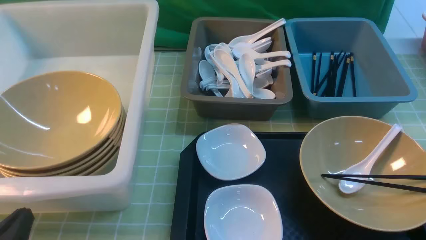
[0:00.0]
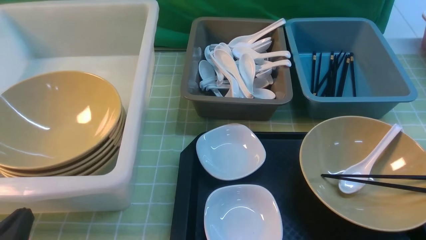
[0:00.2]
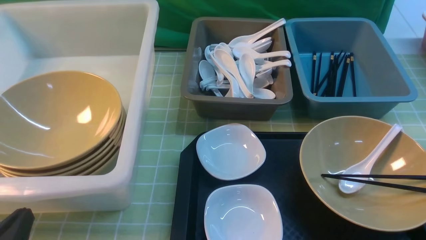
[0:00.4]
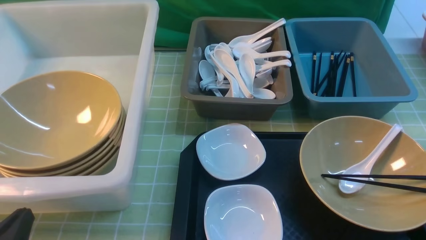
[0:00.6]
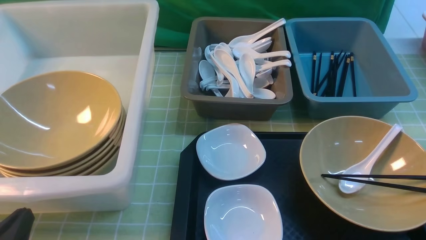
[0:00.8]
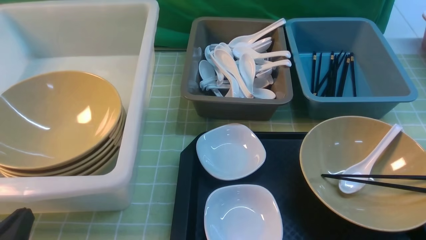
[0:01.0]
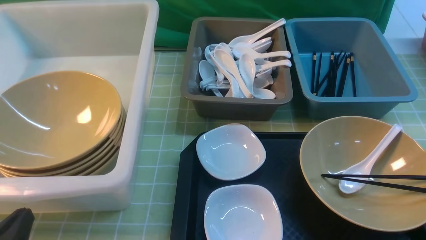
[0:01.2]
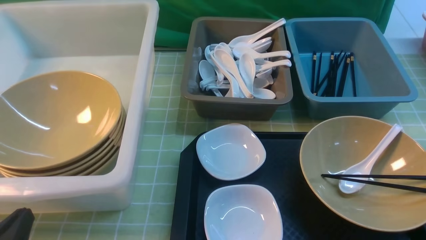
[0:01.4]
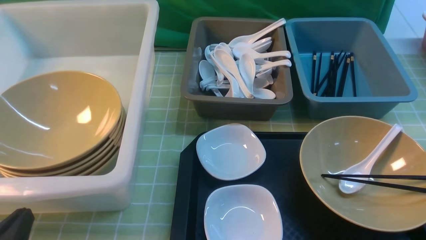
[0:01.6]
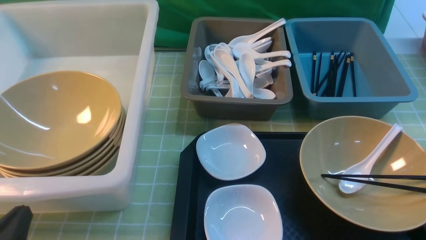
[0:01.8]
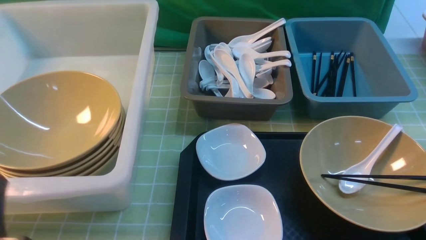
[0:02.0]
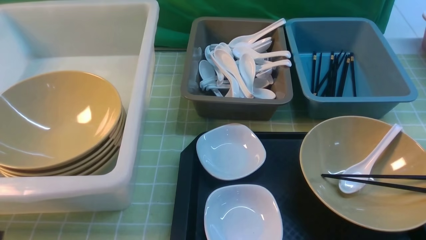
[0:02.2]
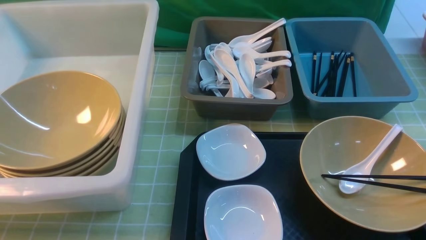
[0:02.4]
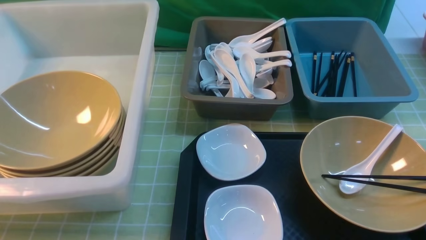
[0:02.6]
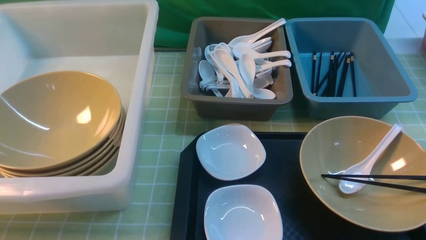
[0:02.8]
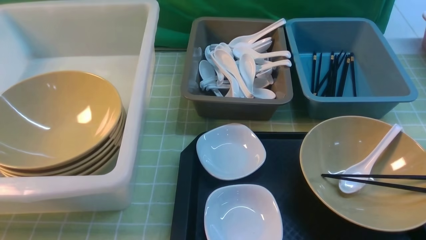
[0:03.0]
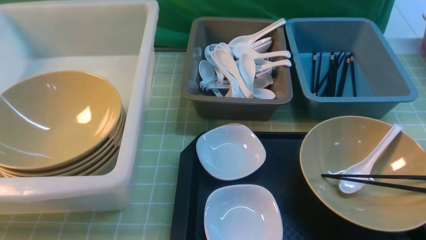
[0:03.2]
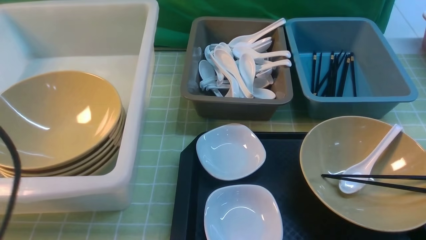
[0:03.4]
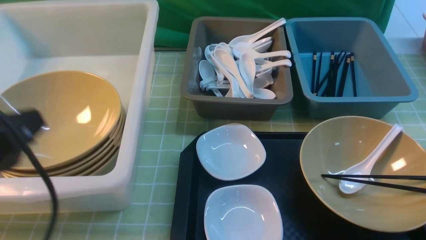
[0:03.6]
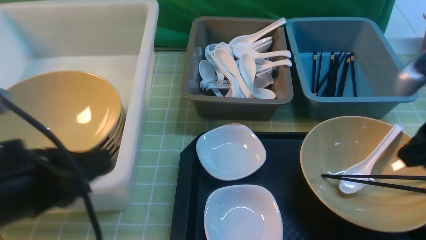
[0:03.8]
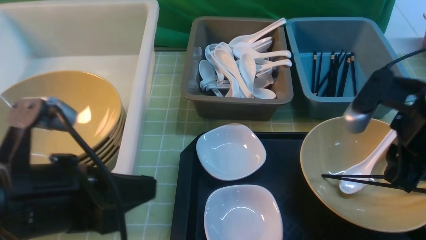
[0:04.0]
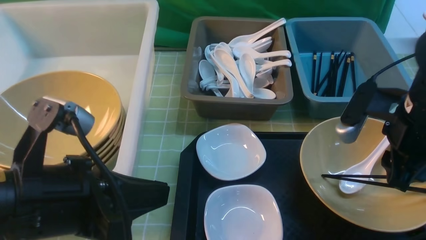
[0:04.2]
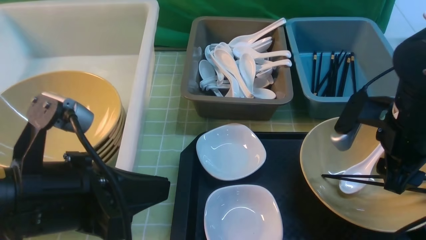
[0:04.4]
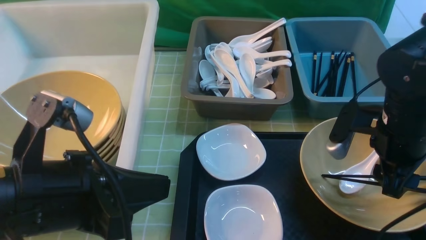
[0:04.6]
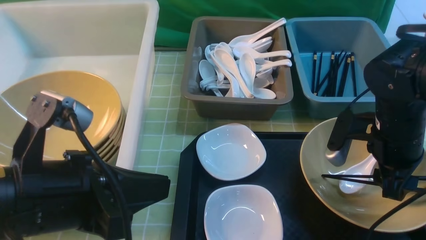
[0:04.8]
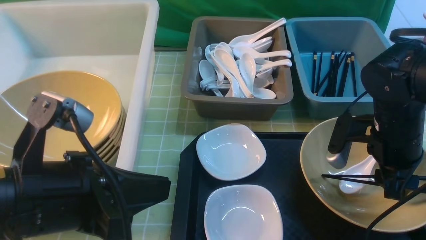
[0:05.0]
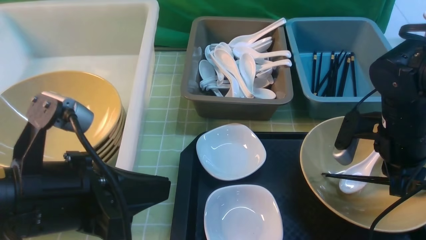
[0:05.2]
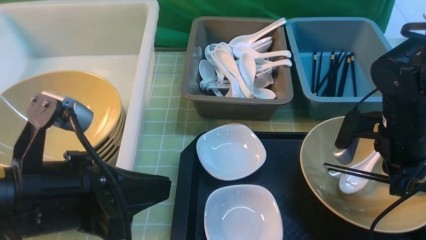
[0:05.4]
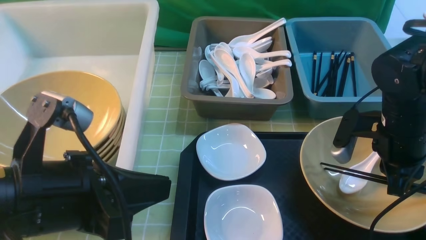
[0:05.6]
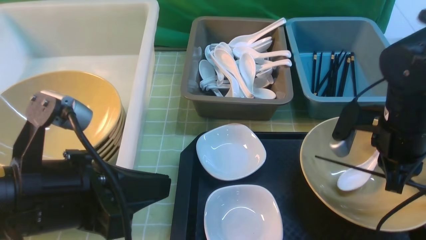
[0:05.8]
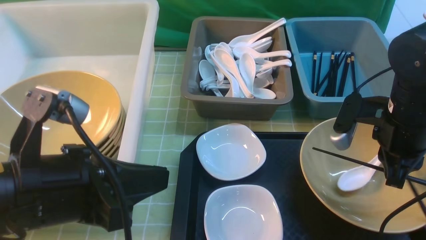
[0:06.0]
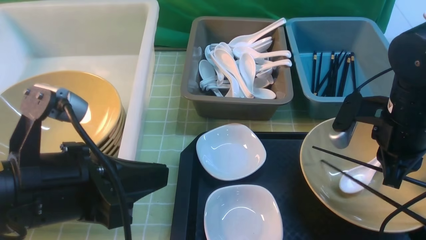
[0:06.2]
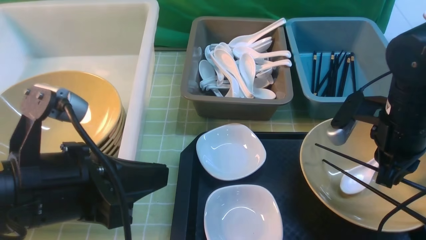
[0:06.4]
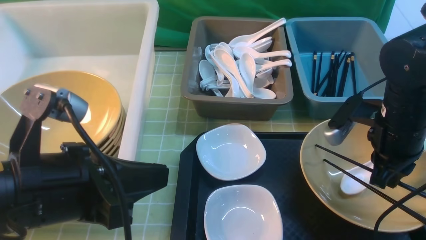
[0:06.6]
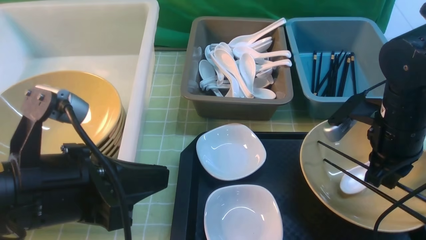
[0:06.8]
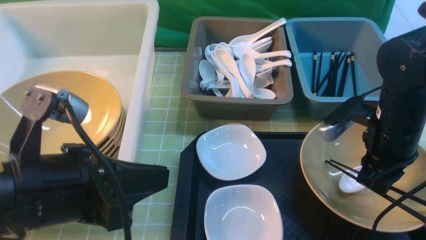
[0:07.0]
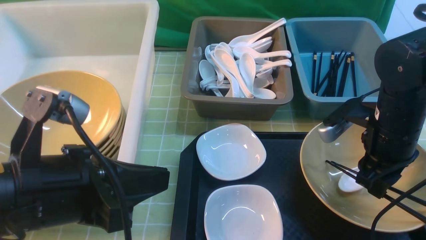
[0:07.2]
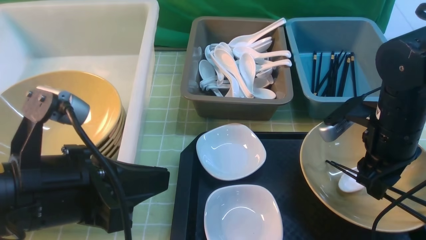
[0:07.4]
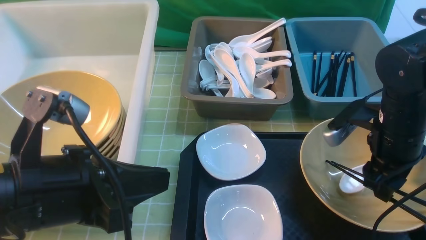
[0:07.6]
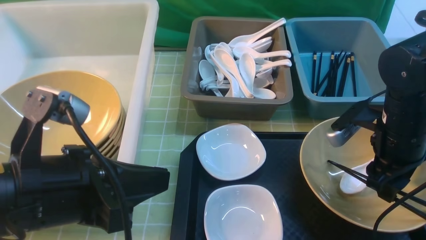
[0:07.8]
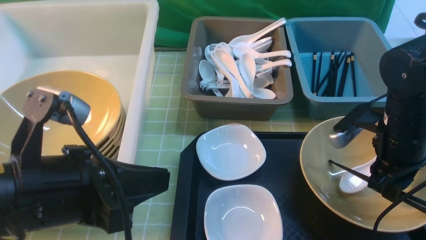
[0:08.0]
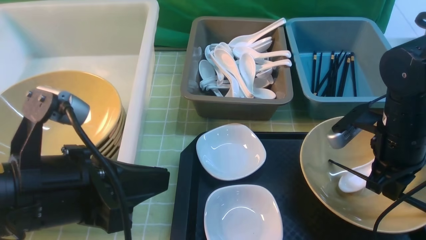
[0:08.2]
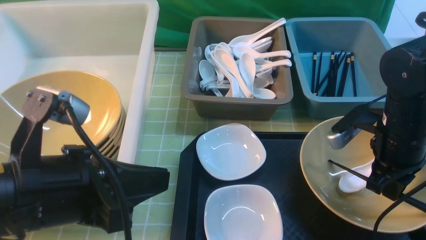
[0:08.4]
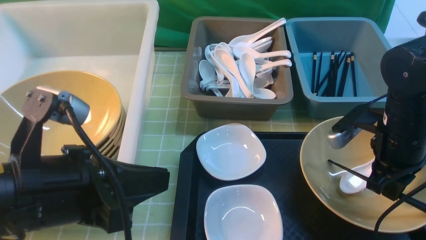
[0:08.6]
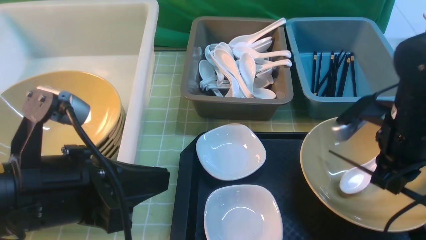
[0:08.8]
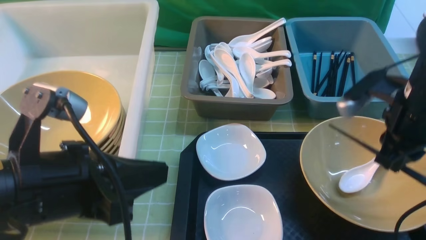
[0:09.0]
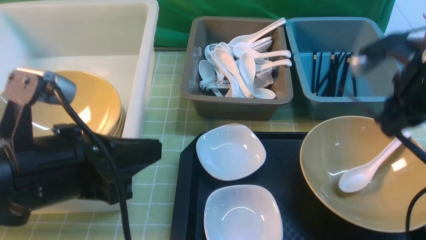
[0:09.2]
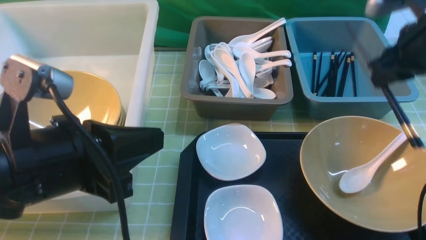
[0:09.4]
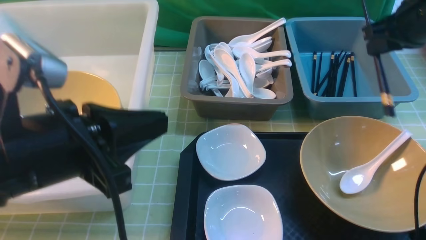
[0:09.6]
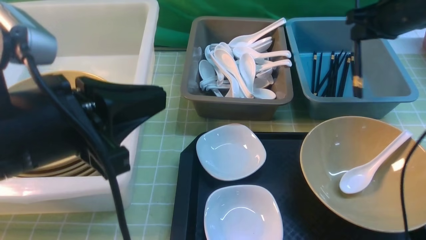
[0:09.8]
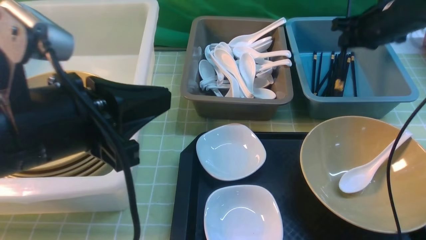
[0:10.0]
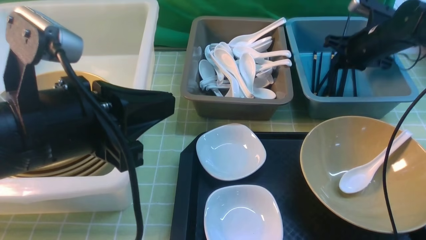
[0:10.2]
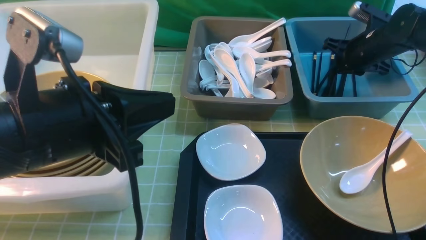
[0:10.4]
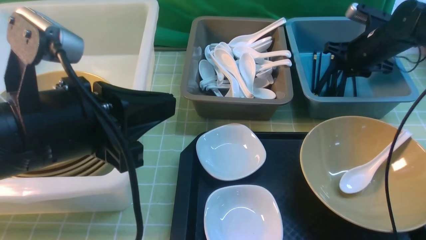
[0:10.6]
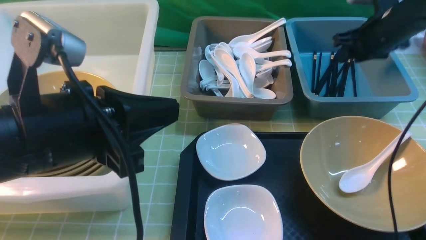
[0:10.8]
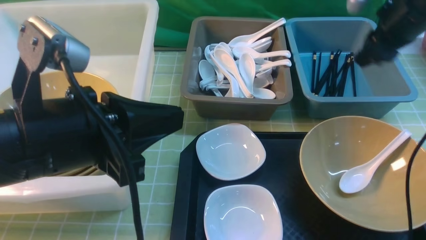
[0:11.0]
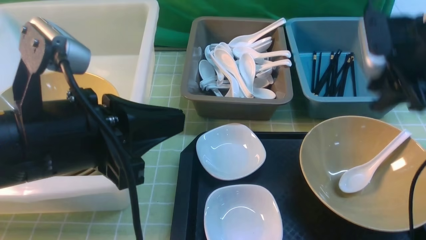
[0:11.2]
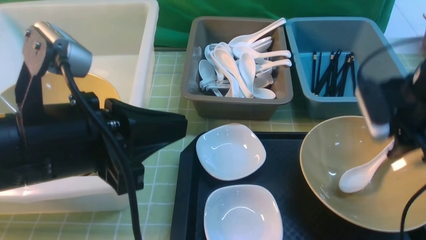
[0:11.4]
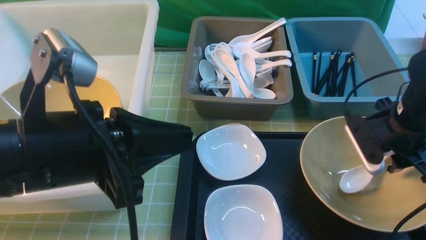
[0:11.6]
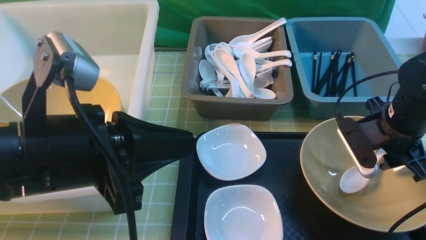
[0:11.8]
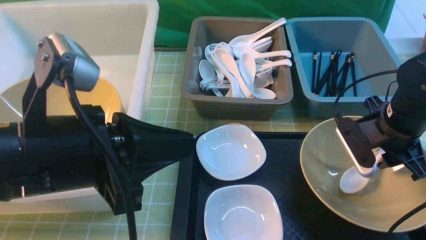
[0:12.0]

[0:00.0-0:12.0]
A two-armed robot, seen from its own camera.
Task of the whole recording: on green table put chopsticks spoon bowls plates into blue grey white boxes.
Step, 0:00.0 to 0:09.0: use the right arm to grab the chopsticks.
Step, 0:09.2 to 0:10.8: use the right arm to put the chopsticks into the small storage box on the right.
0:00.0 to 0:01.6: Both grippers stay about where they are.
0:01.6 to 0:03.0: The left gripper goes roughly 20 cm upward.
0:03.0 to 0:04.4: The right gripper travels forward and downward by approximately 30 cm; the left gripper goes roughly 15 cm to the right, downward and forward.
0:04.4 to 0:06.0: The right gripper closes.
0:06.0 to 0:07.6: The right gripper opens its fingers.
0:07.6 to 0:09.0: The right gripper travels upward by about 5 cm, and closes.
0:09.0 to 0:10.4: The right gripper is displaced forward by some 20 cm.
0:10.4 to 0:12.0: The right gripper travels backward by roughly 20 cm.

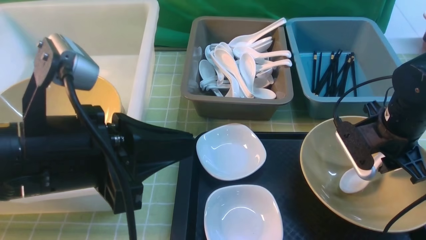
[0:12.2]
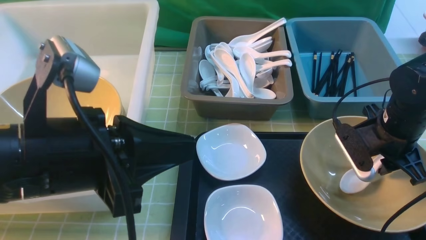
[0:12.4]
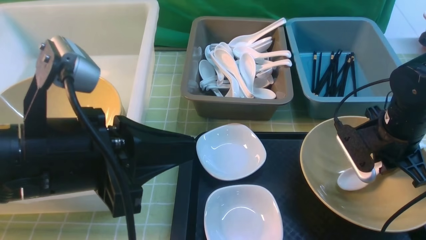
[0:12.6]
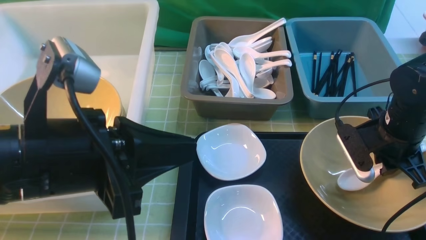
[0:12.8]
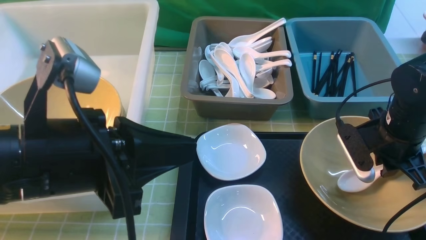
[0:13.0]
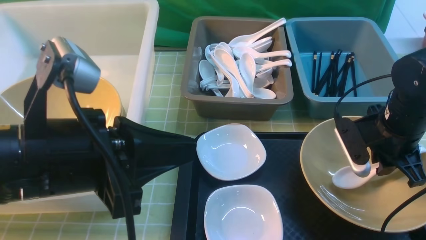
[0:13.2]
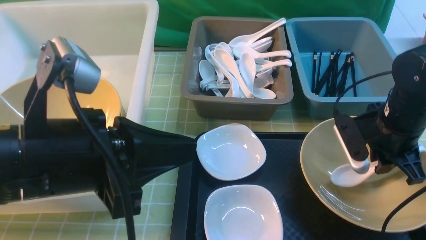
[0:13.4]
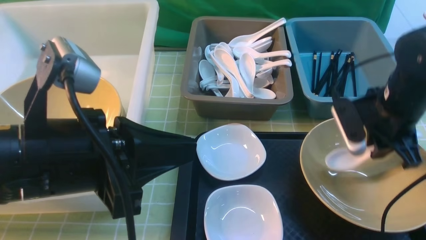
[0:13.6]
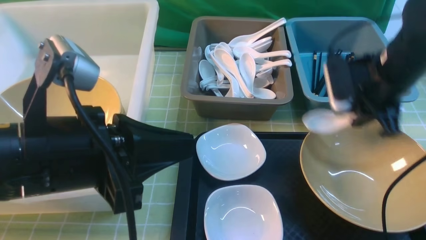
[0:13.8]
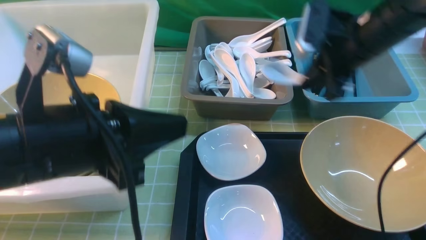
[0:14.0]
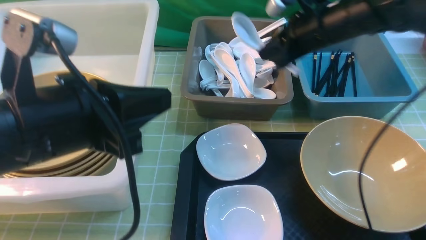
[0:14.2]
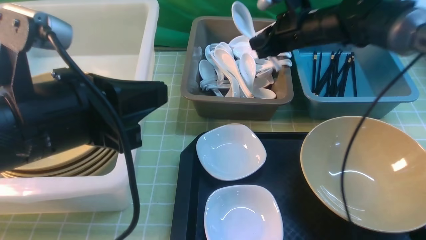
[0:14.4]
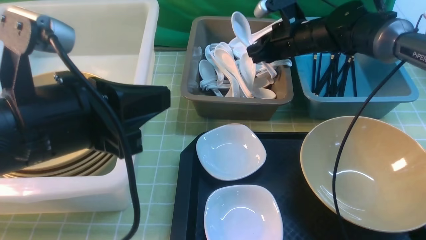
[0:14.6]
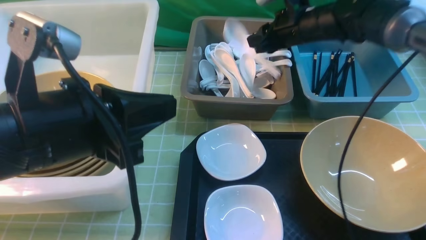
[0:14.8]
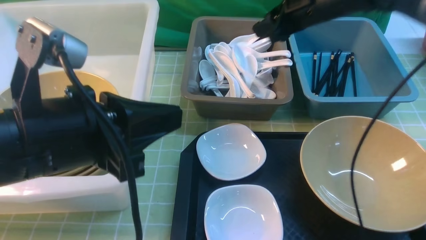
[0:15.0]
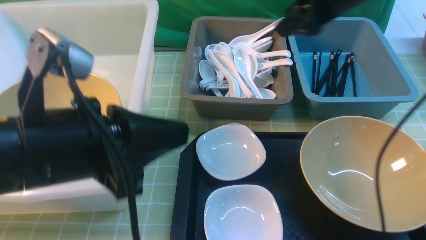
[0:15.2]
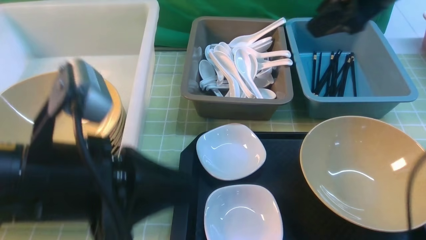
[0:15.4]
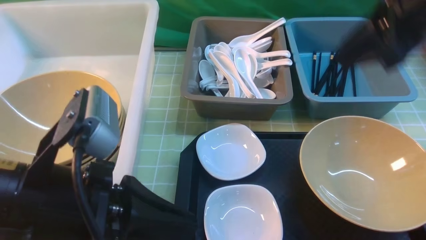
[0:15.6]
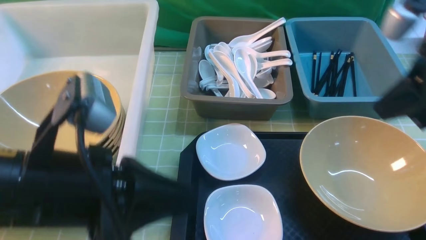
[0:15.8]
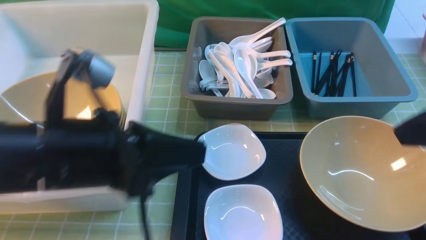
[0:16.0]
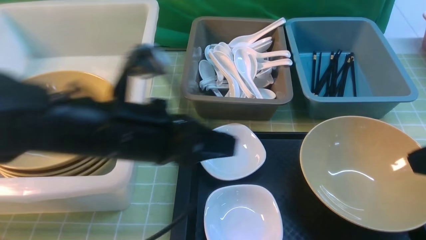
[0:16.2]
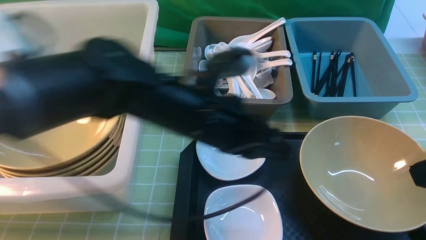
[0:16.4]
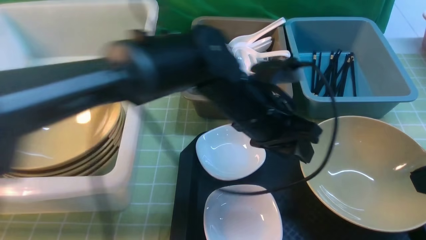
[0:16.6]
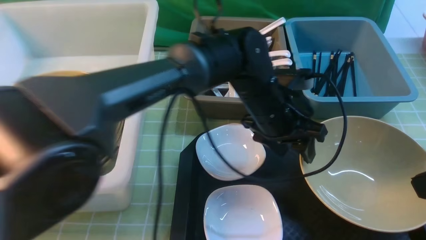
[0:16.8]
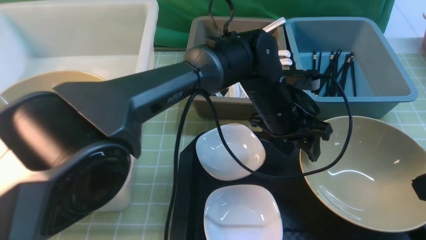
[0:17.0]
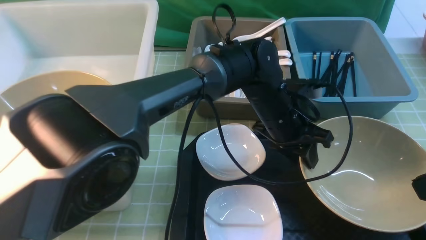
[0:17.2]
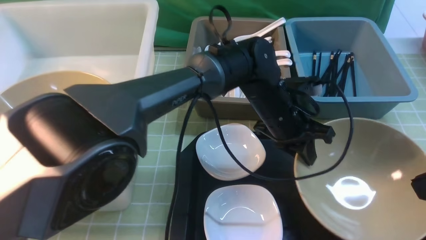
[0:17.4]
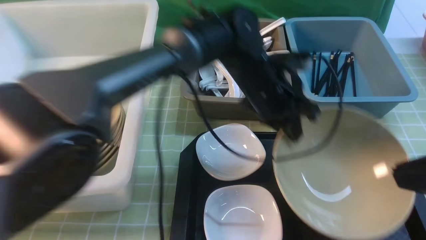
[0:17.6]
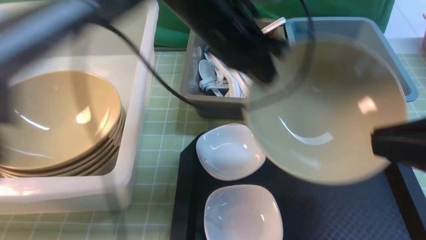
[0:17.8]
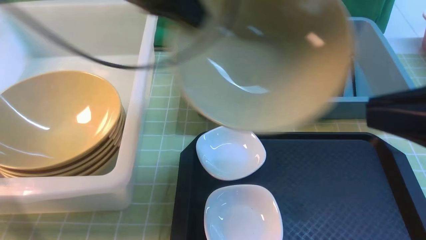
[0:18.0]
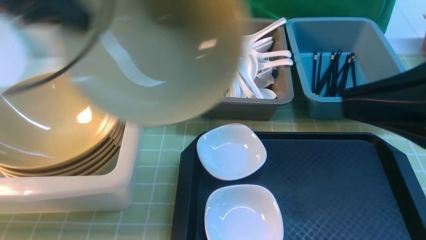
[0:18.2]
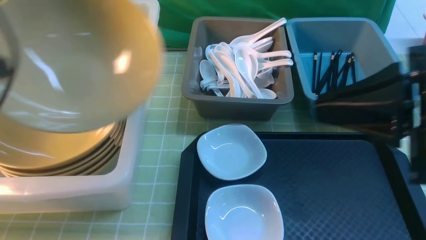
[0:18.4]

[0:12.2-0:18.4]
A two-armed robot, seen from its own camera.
Task of the whole recording: on green table put chopsticks spoon bowls plates into blue grey white boxes.
Step, 0:12.2 to 0:13.6: use the right arm to grab the soup spoon in the middle.
Step, 0:13.8 to 0:15.2: use the right arm to put the soup spoon into the small storage box in the middle.
Step, 0:15.4 to 0:17.6: use the left arm to grab the yellow noodle bowl on the left.
0:12.2 to 0:13.8: The right gripper moves upward, roughly 5 cm.
0:13.8 to 0:15.4: The right gripper is displaced upward by approximately 15 cm, and reaches about 15 cm forward, then returns.
0:15.4 to 0:16.8: The right gripper is displaced backward by some 20 cm, and closes its fingers; the left gripper moves to the right, forward and downward, approximately 30 cm, and opens up.
0:16.8 to 0:18.4: The right gripper goes some 5 cm to the left; the left gripper shifts approximately 40 cm to the left, and closes its fingers.
